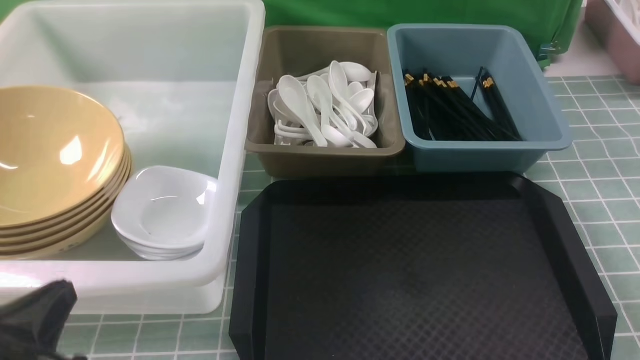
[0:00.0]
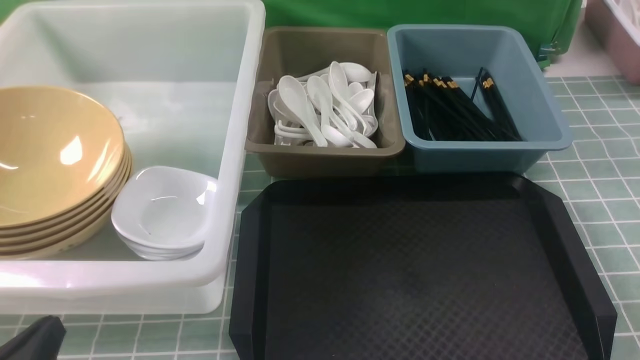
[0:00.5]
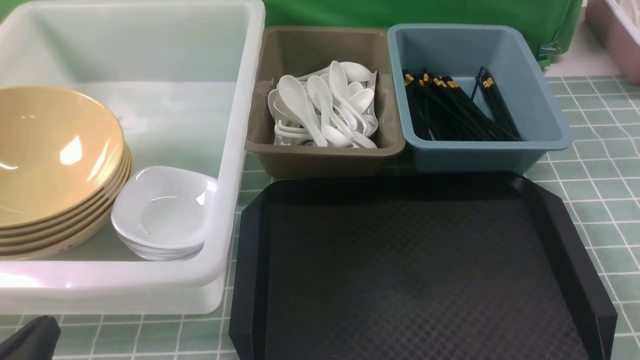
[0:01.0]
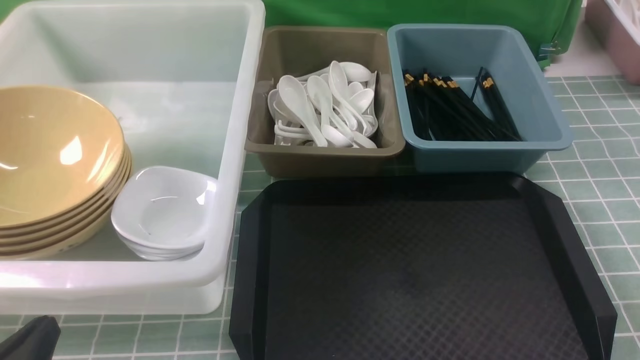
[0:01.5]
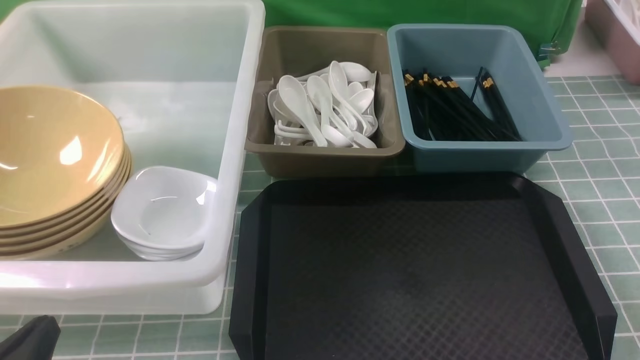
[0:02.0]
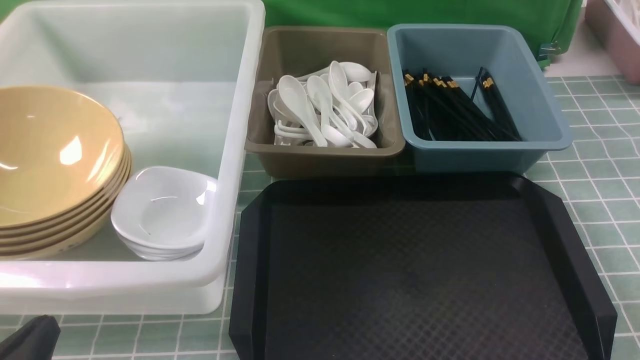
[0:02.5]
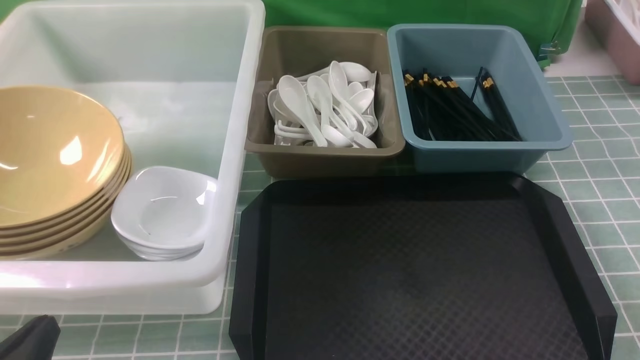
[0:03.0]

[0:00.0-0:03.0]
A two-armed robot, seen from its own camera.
Task of the whole recording: on blue table put chopsticks spoon bowls plates into blue grey white boxes.
0:00.0 to 0:01.5: There are only small adjustments of the grippers.
0:01.5 to 0:03.0: Both grippers stay about where they are.

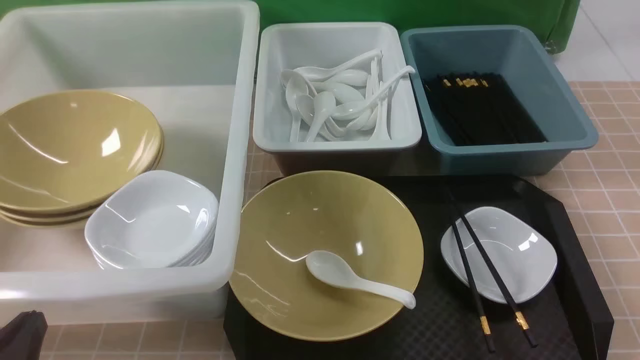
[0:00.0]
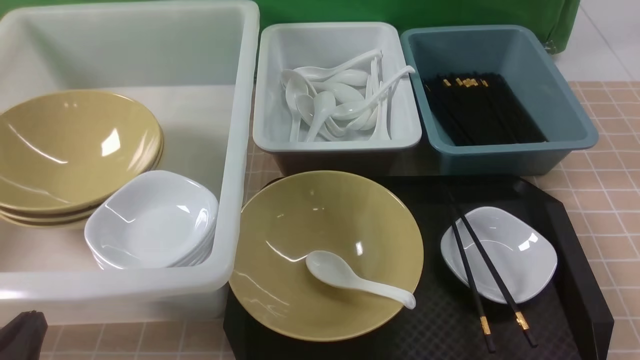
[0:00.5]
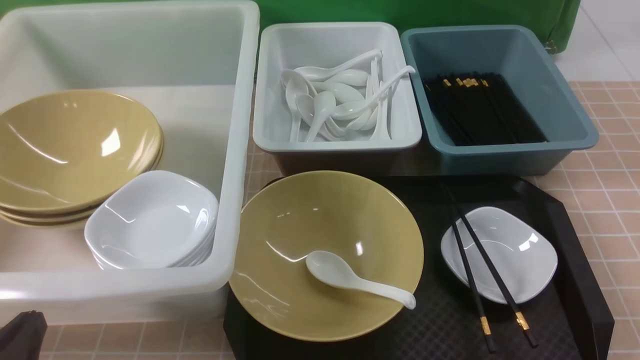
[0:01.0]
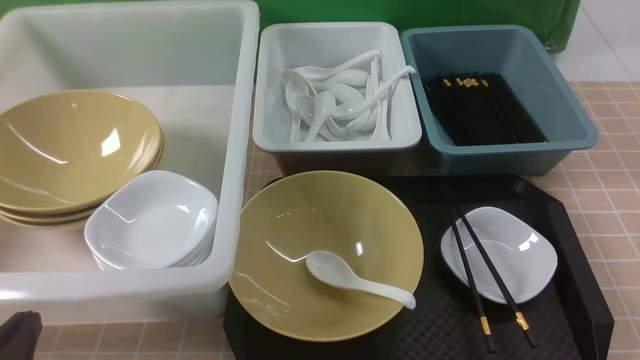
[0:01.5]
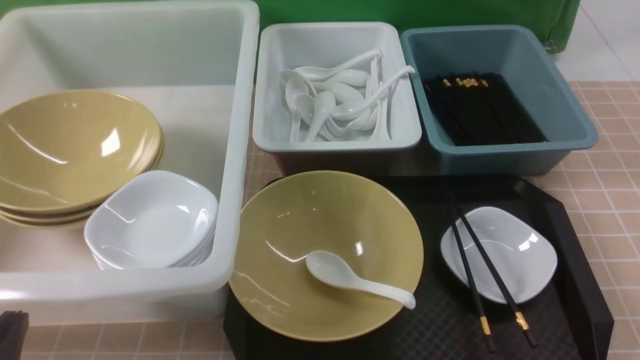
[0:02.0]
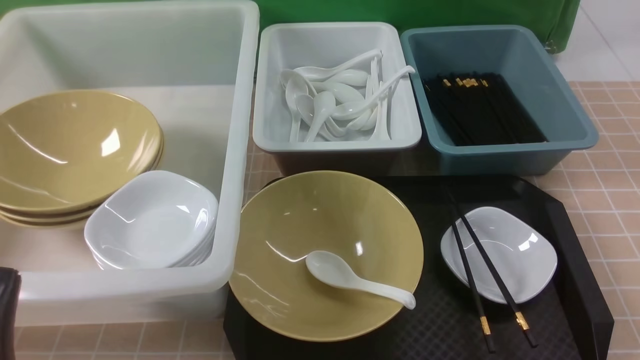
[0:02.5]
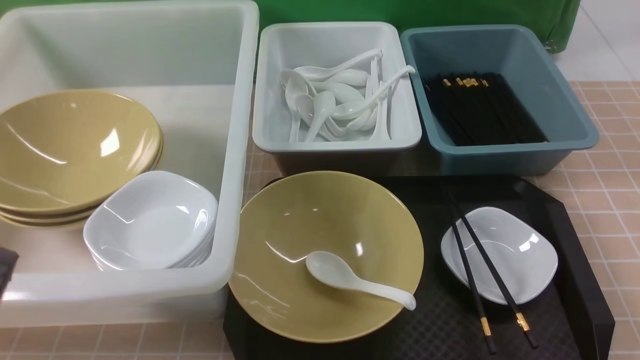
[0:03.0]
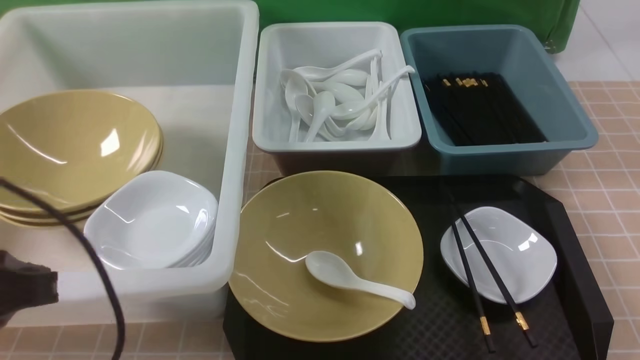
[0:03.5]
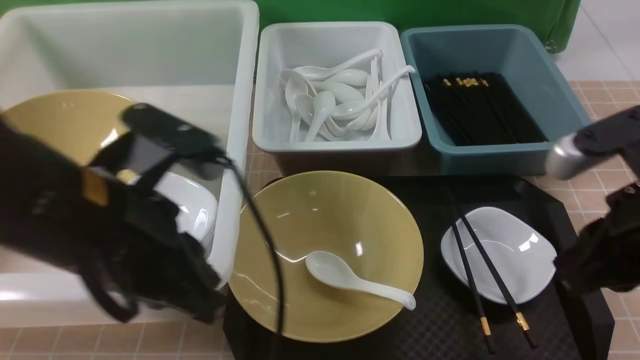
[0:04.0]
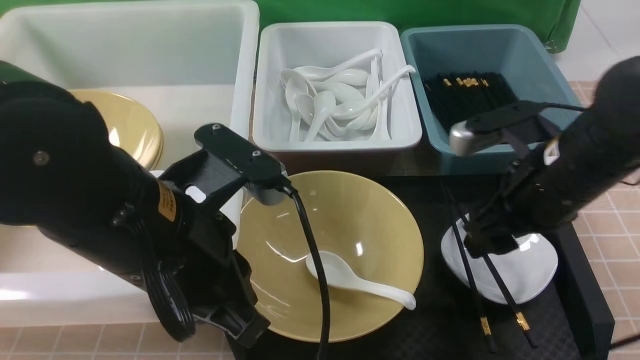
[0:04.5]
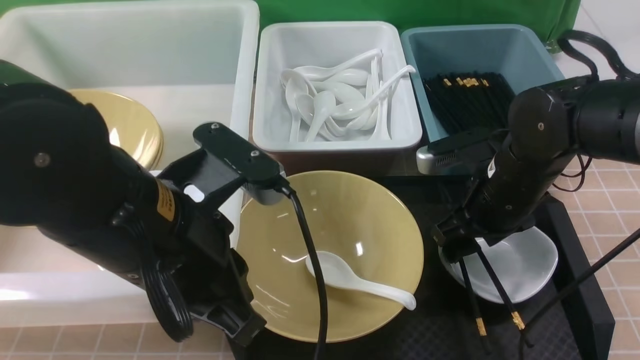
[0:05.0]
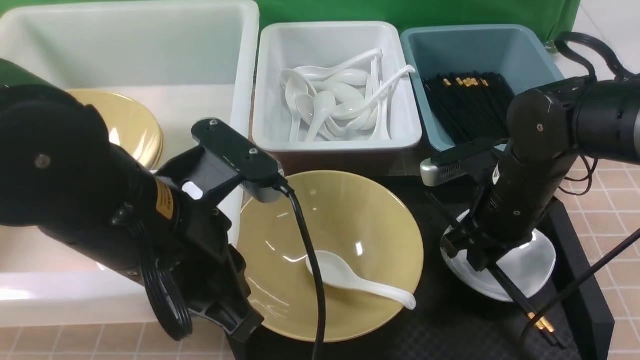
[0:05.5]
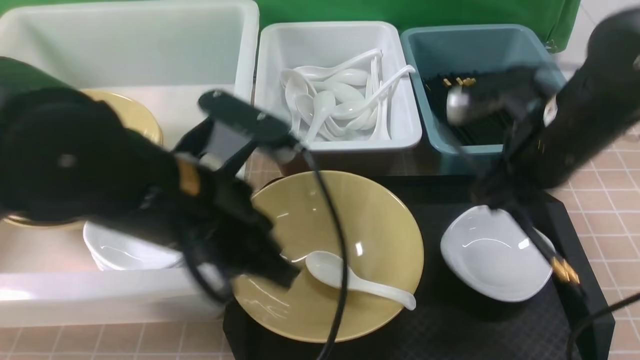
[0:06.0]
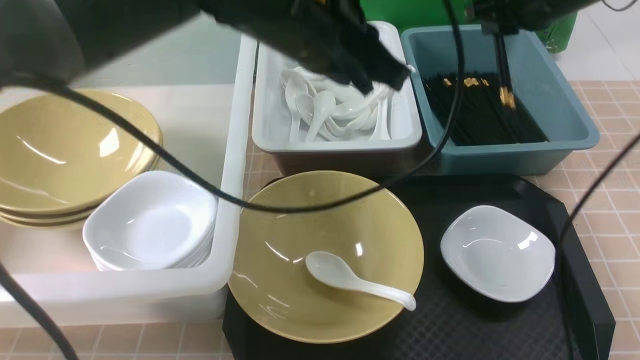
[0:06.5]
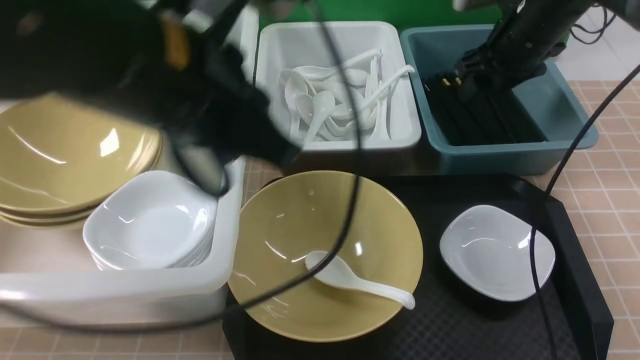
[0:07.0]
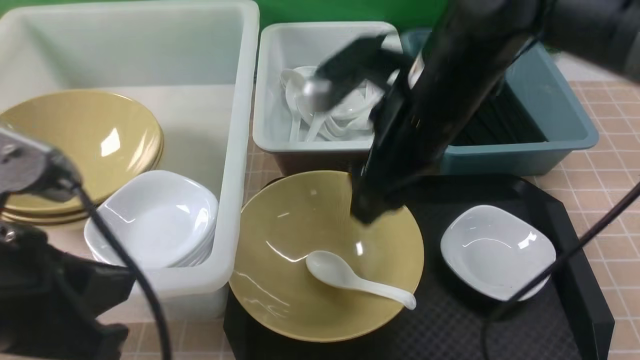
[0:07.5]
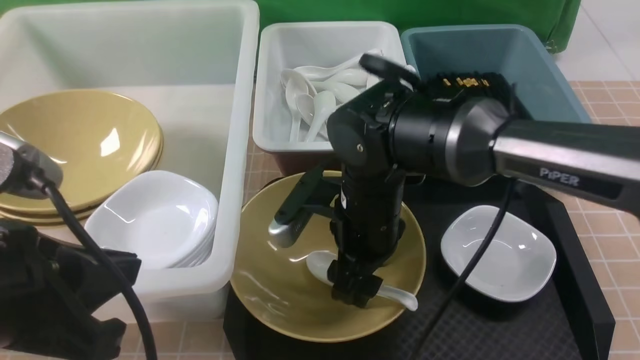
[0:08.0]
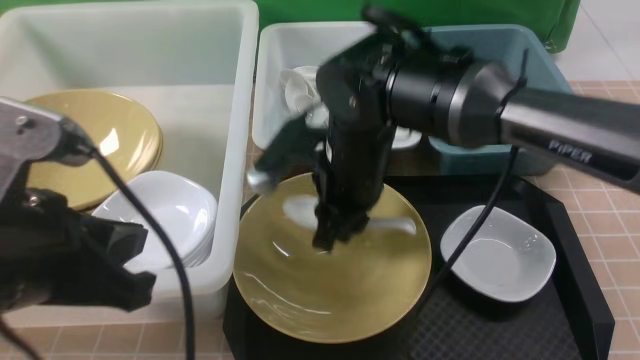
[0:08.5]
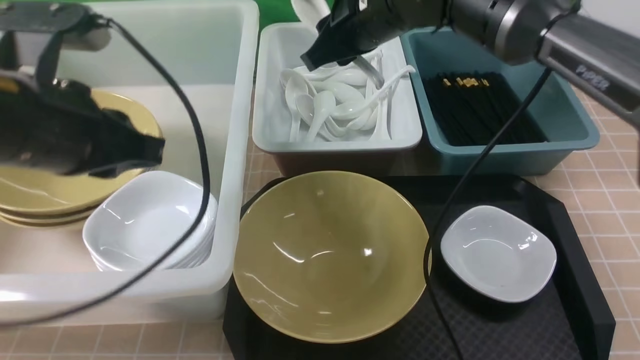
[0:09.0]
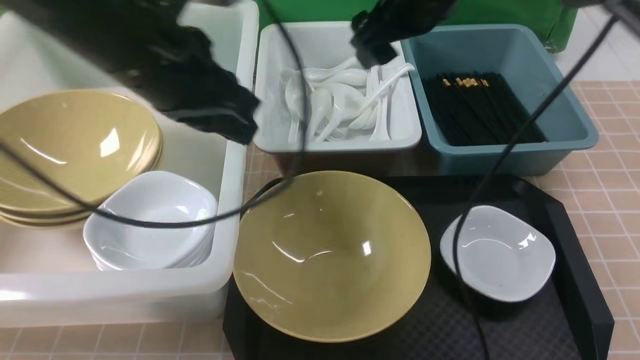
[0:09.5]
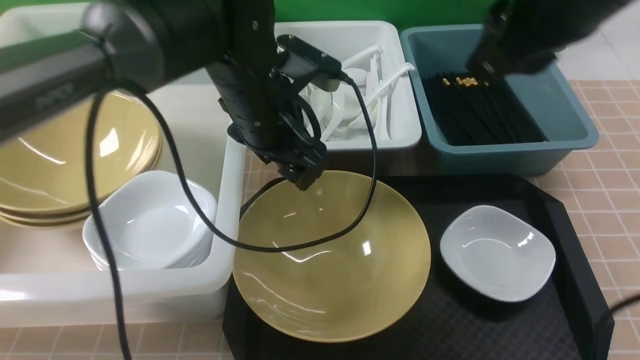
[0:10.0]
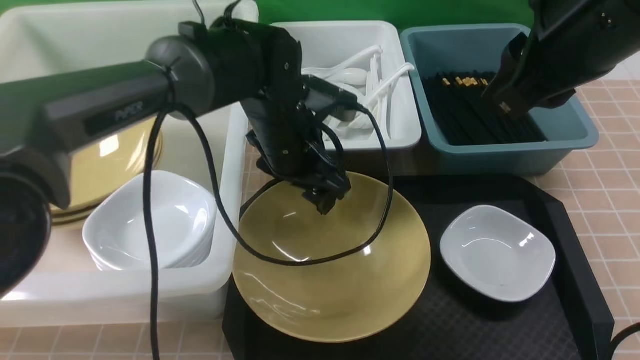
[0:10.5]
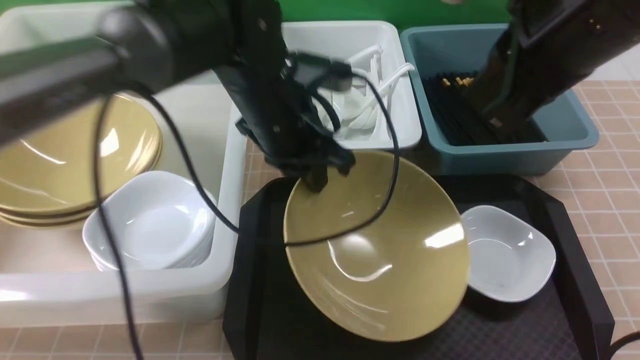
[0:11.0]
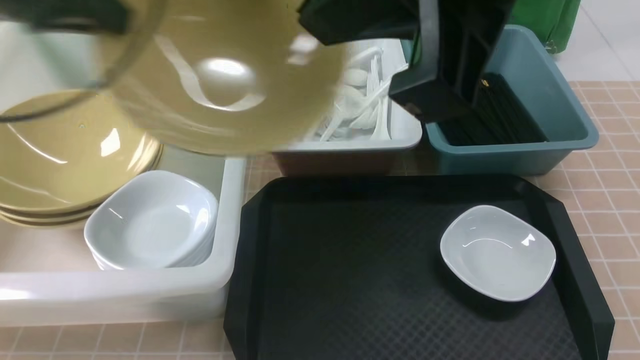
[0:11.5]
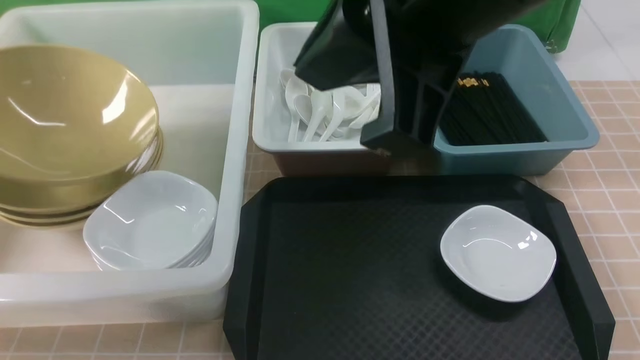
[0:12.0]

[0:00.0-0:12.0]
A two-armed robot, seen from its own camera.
Task of the whole recording: on brown table put chopsticks spoon bowls plates into blue grey white boxes.
Step, 0:00.0 to 0:05.5: use the right arm to grab the chopsticks.
Step, 0:06.0 to 0:07.0: use the right arm to put the chopsticks into the small storage box on the right.
Step, 0:07.5 to 0:08.0: use the right arm to grab the soup spoon in the middle.
Step, 0:09.5 to 0:10.5: use the left arm to grab the yellow noodle bowl on the left.
0:02.0 to 0:04.0: The right gripper moves forward, upward and to the left, approximately 20 cm; the left gripper heads upward, to the right and forward, covering some 20 cm.
0:04.0 to 0:06.0: The left gripper travels to the right by some 5 cm, while the right gripper shifts approximately 15 cm forward, and opens and closes again.
0:06.0 to 0:08.0: The left gripper moves backward and to the left, roughly 15 cm; the right gripper moves to the left and downward, roughly 20 cm, and opens.
0:08.0 to 0:10.0: The right gripper moves upward and to the right, roughly 25 cm. Meanwhile the left gripper travels forward and to the right by roughly 30 cm, and opens.
0:10.0 to 0:12.0: The left gripper goes about 35 cm to the left, and closes its fingers. Meanwhile the right gripper shifts approximately 15 cm backward, to the left and upward, and closes its fingers.

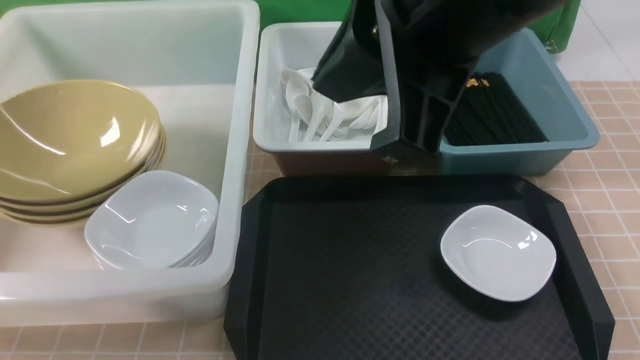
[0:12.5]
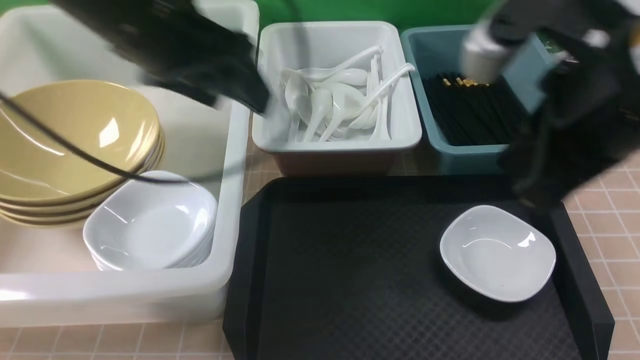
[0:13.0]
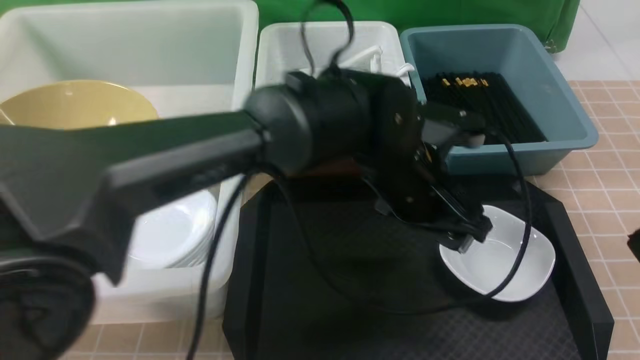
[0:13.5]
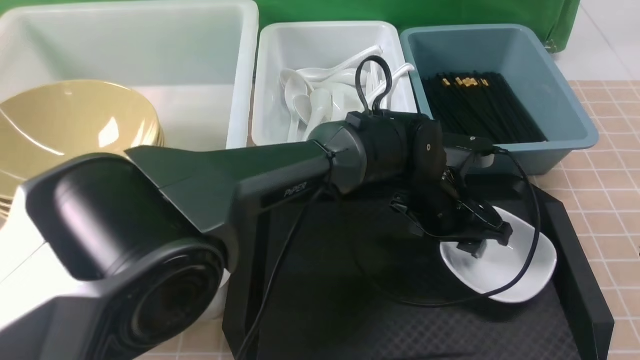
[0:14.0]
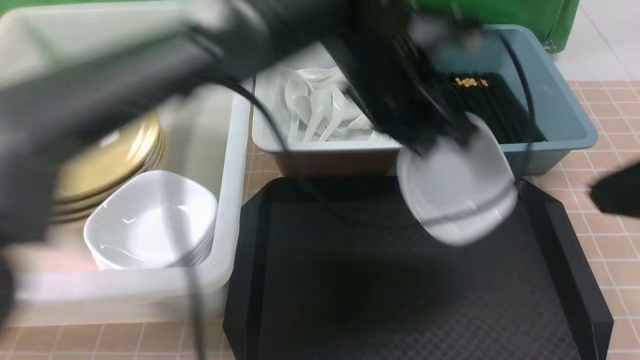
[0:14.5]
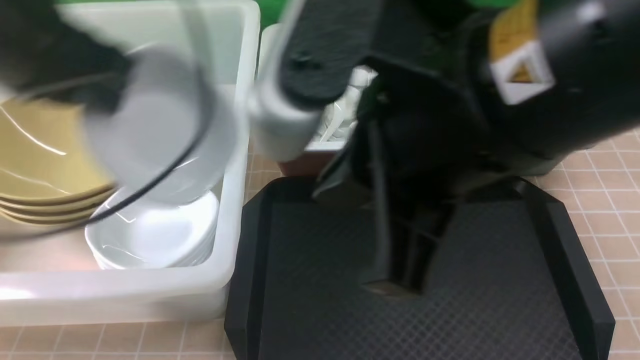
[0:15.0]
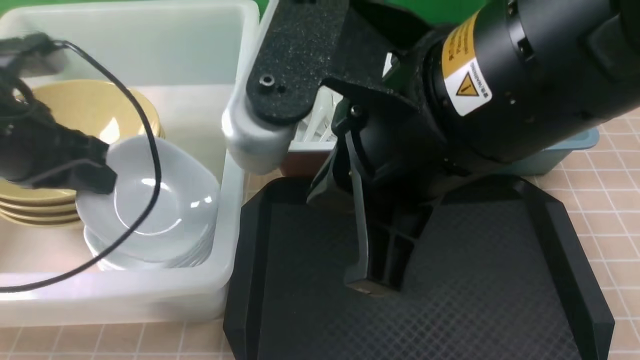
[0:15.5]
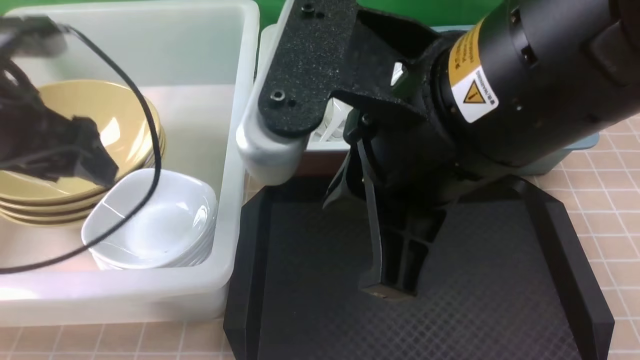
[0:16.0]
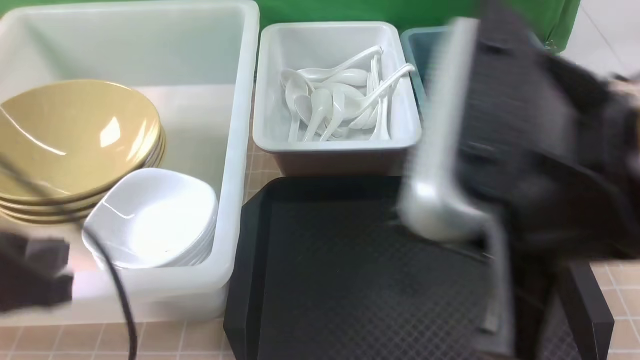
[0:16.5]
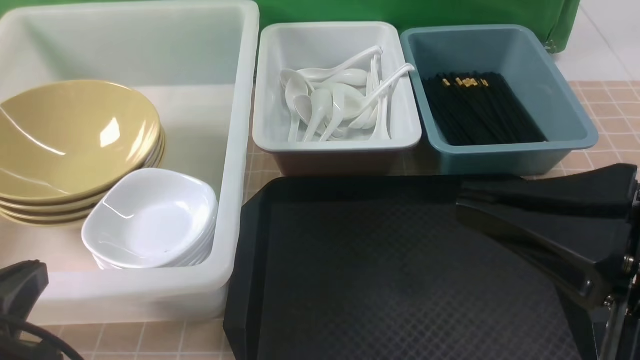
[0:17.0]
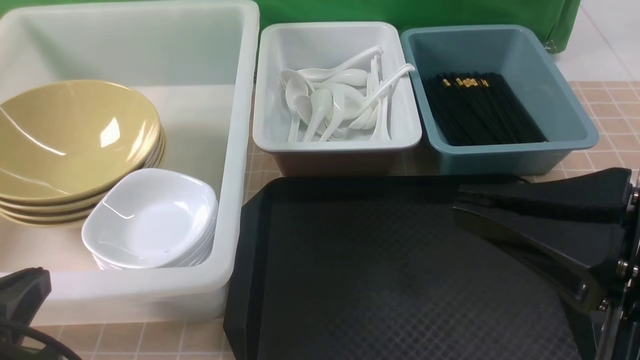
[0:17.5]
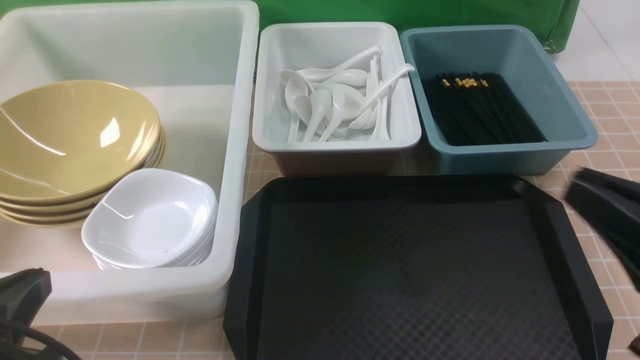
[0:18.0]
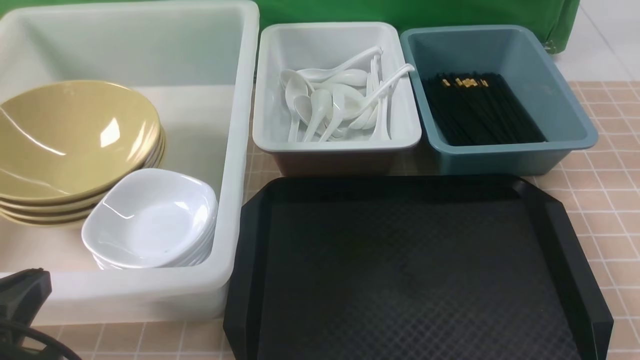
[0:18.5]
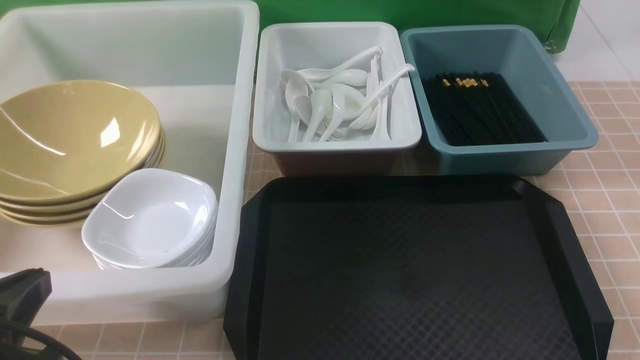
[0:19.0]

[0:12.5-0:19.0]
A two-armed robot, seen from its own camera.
Task of the whole recording: on brown table put chopsticks spoon bowls plates into blue grey white boxes.
Step, 0:13.0 to 0:14.0: use the left arm to grab the plate.
Step, 0:14.5 to 0:16.0: use the left arm to put the plate into the large storage box on the left.
0:12.5 to 0:14.5: The right gripper is displaced to the right and backward by about 15 cm. The left gripper heads to the right, covering about 40 cm, and closes its fingers.
0:14.5 to 0:17.0: The right gripper is displaced backward by some 5 cm, and reaches about 15 cm to the left, then returns; the left gripper is displaced to the left and backward by roughly 35 cm, and opens, then closes once more.
0:17.0 to 0:19.0: The right gripper moves downward and to the right, roughly 25 cm.
